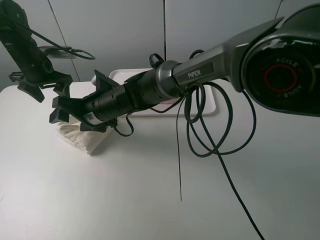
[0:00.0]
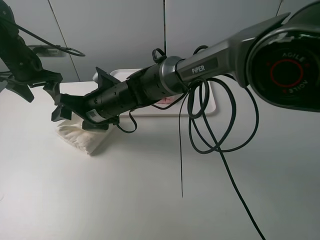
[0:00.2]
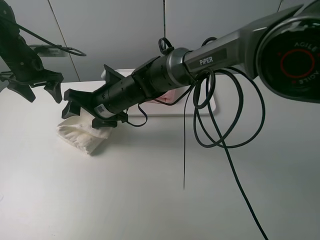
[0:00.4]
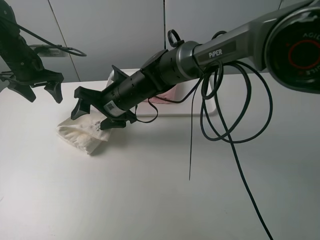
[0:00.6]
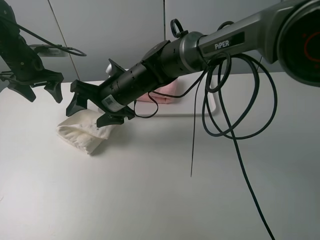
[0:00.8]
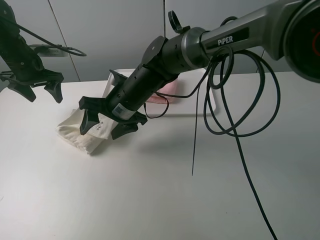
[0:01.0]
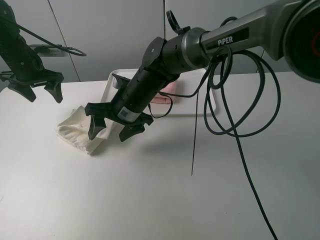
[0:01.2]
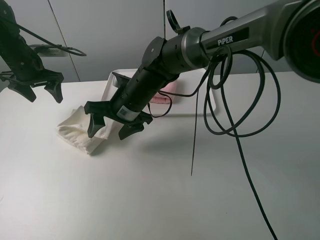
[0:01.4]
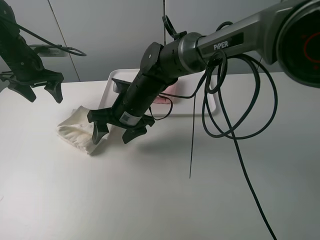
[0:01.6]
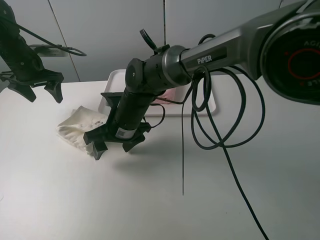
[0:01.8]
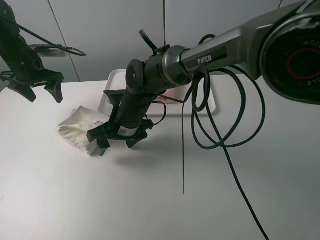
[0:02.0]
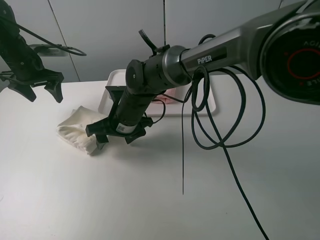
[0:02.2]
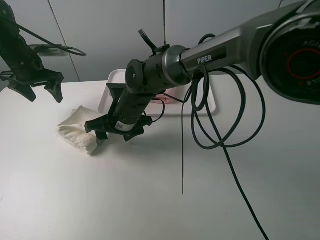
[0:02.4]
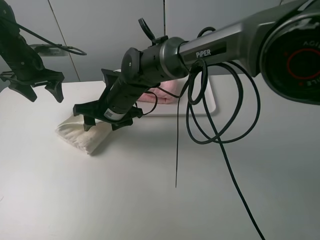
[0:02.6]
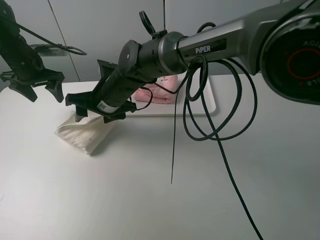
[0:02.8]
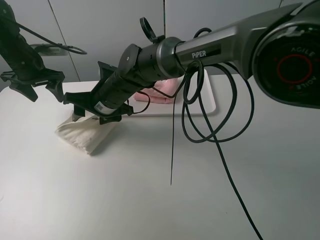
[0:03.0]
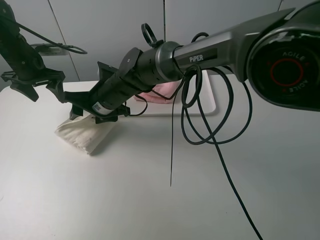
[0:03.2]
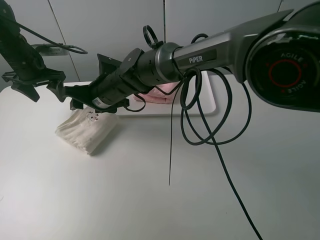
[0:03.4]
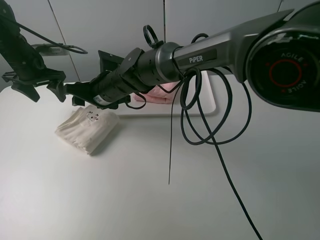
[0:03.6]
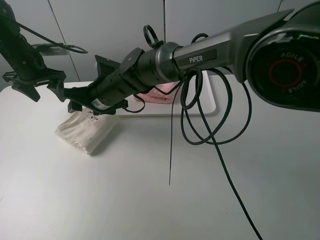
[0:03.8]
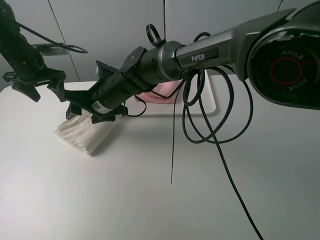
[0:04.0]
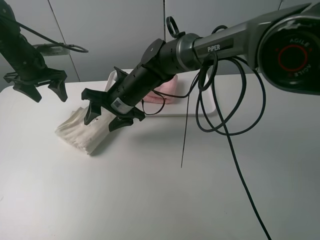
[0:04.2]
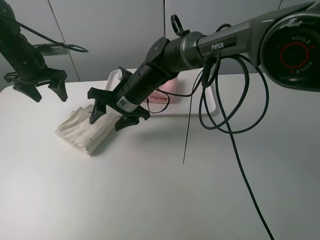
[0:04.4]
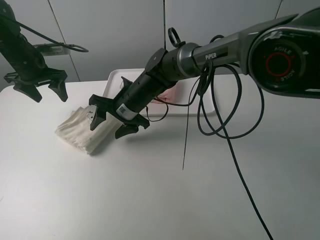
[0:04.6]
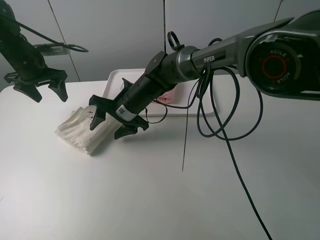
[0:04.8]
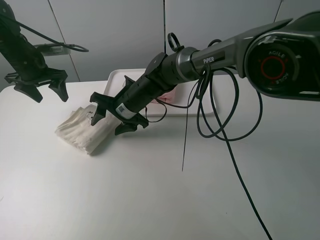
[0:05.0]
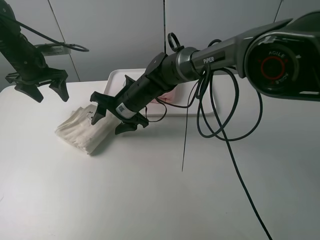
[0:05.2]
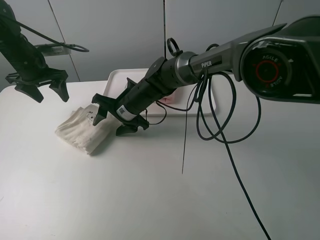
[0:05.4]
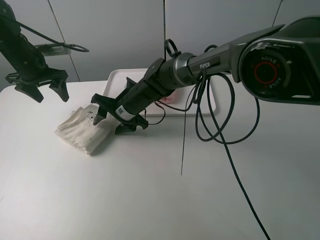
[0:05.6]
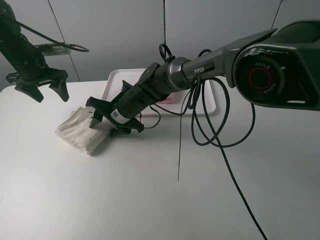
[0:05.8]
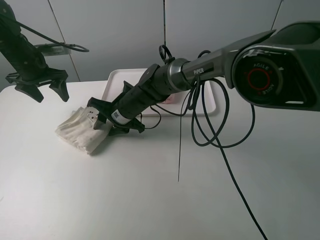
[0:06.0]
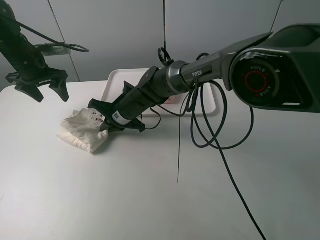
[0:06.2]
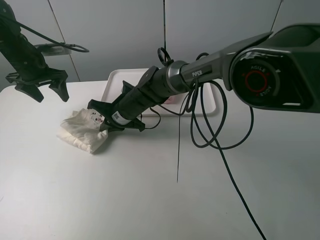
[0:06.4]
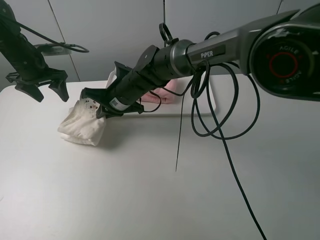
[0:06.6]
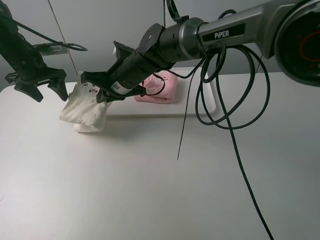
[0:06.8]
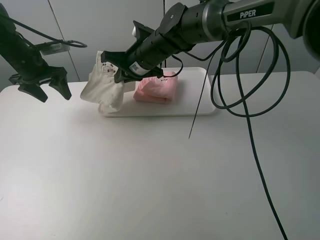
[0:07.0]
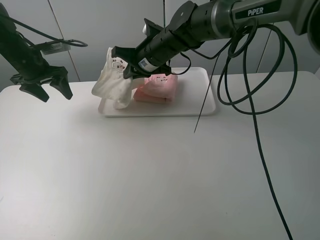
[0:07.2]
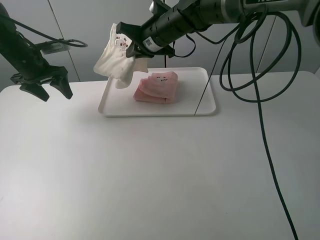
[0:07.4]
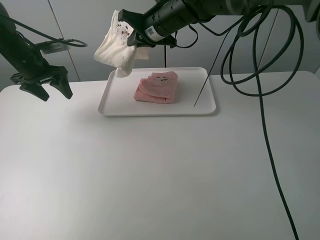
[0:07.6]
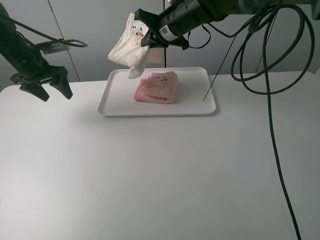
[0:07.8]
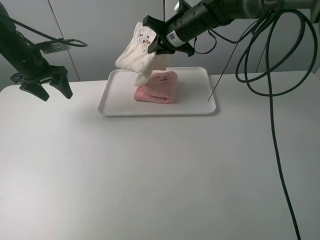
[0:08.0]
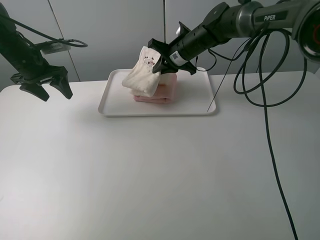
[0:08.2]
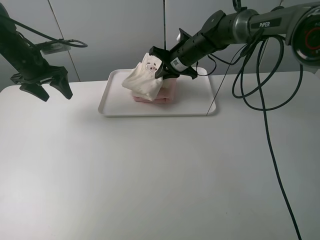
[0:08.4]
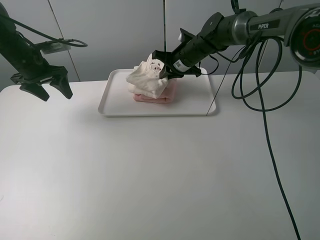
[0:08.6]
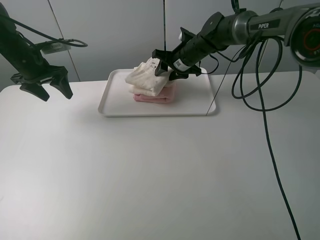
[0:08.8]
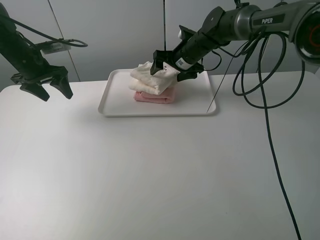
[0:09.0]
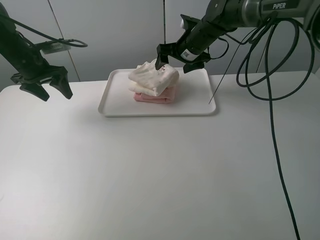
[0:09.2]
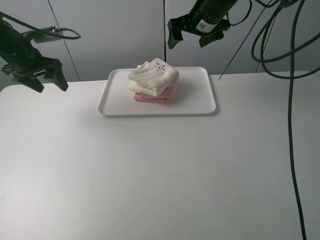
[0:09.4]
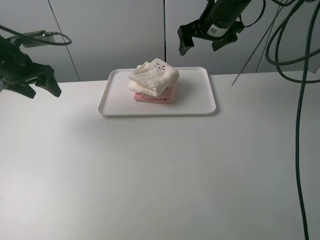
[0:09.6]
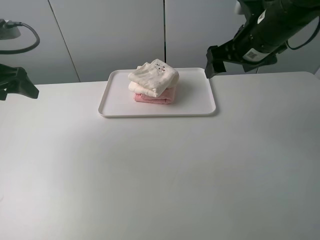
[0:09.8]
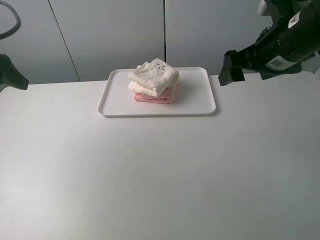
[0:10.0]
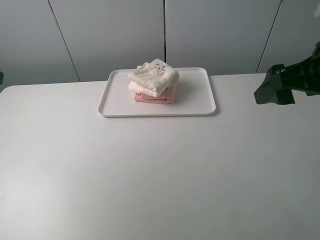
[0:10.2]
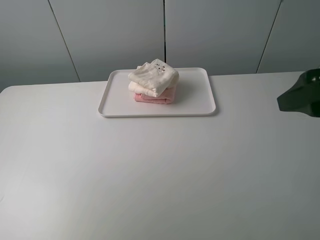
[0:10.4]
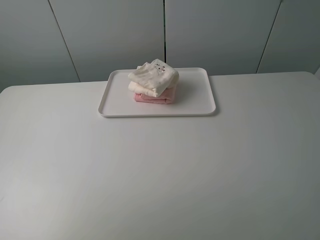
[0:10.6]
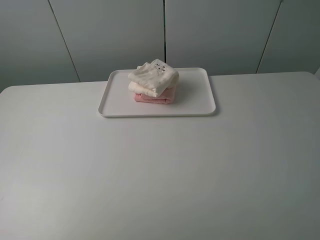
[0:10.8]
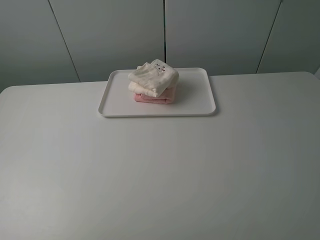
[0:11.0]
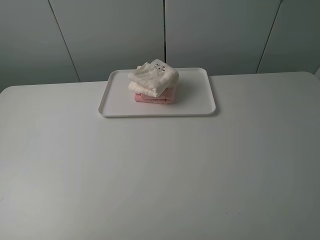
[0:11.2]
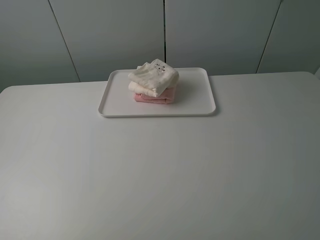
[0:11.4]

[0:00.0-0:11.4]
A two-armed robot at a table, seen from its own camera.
Task of the whole recording: fold one of the towels by two grippers and place it on the tray,then fold another towel by two grippers and place it on the folded towel.
Step, 0:00.4 to 0:06.2: Grasp the white towel with the right gripper.
Step, 0:06.4 to 0:09.0: Place the white towel on the pink towel with the right gripper.
0:00.0 to 0:01.4: The right gripper heads to the right, covering approximately 5 cm.
0:02.8 to 0:04.2: There are only small adjustments of the grippers.
0:04.2 to 0:05.6: There are only small adjustments of the grippers.
0:05.6 to 0:07.2: The right gripper shifts some 15 cm upward, to the right and forward, and closes its fingers.
0:07.2 to 0:08.6: The right gripper heads to the right and forward, covering about 10 cm.
0:08.6 to 0:10.0: The left gripper moves backward and upward, approximately 20 cm. Meanwhile the right gripper moves backward, upward and to the right, approximately 30 cm, and opens up.
0:10.0 to 0:11.4: The two grippers go roughly 25 cm backward.

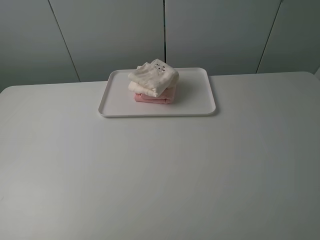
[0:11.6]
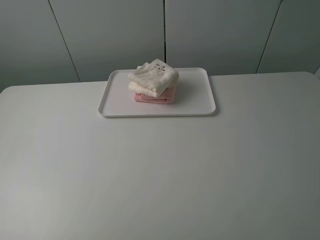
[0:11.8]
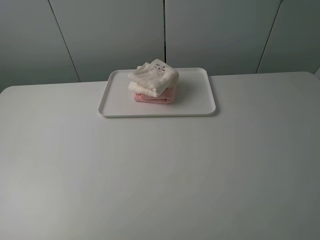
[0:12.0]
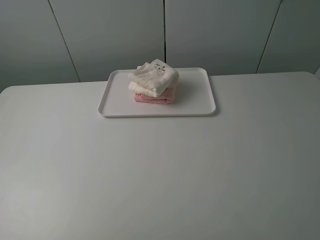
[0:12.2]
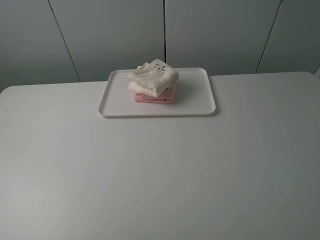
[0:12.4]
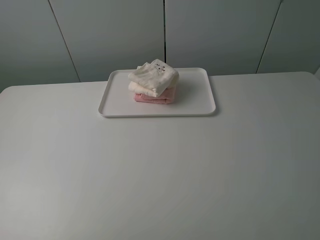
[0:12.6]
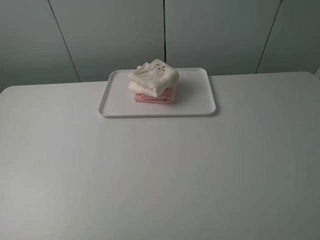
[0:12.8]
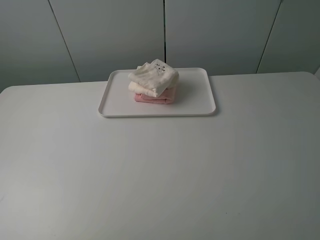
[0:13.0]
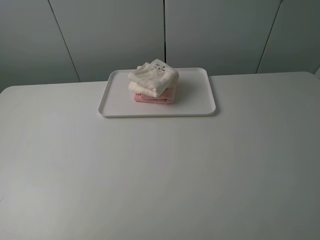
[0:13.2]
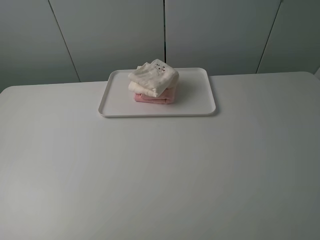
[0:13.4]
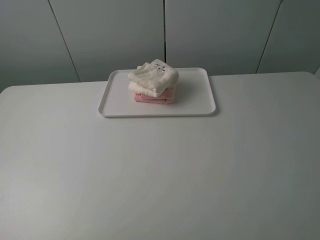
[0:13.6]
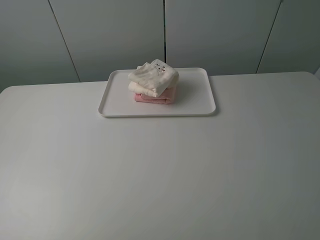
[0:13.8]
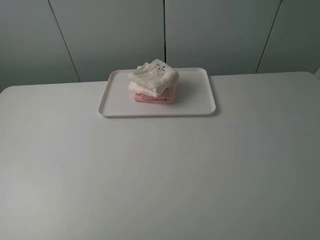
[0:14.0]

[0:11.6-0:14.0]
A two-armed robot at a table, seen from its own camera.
Task of the whole recording: fold one of the towels by two grippers and place it on the tray,then fold another towel by two grippers and place it on the folded towel.
0:12.8 to 0:14.0: The two grippers keep their place.
